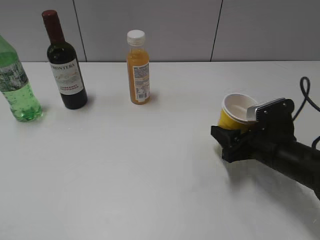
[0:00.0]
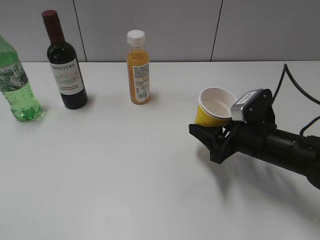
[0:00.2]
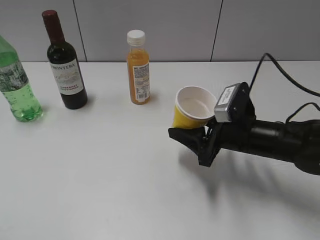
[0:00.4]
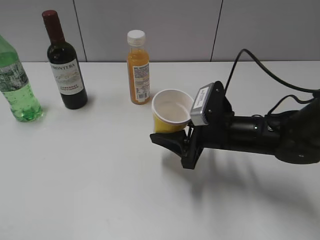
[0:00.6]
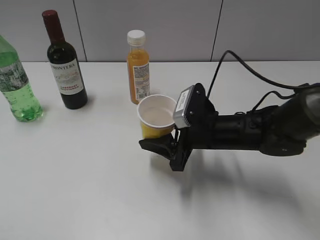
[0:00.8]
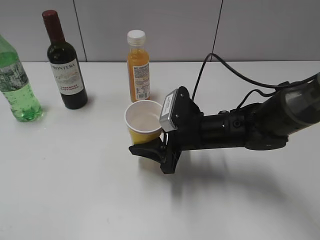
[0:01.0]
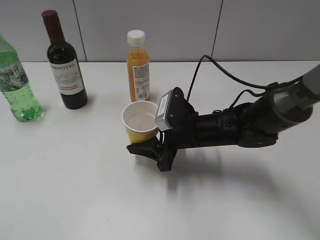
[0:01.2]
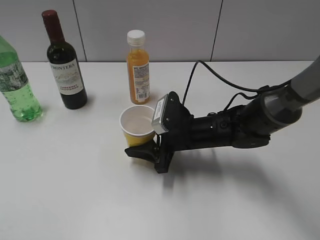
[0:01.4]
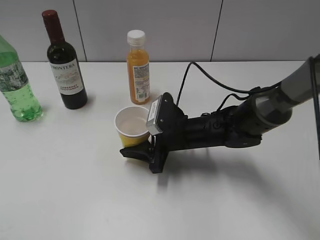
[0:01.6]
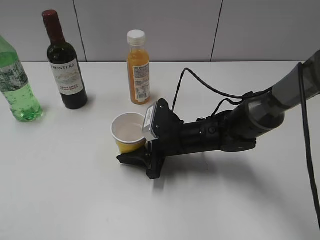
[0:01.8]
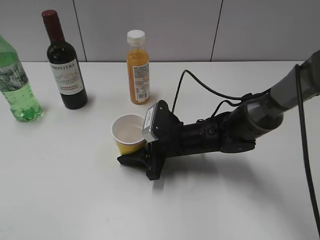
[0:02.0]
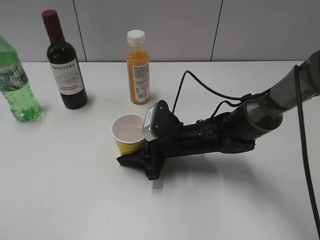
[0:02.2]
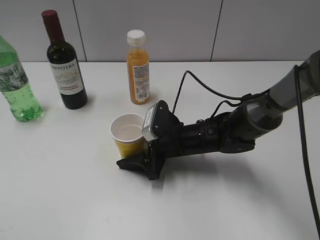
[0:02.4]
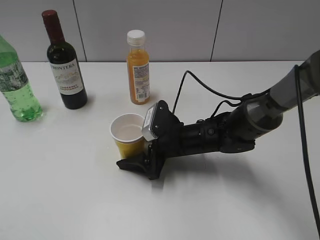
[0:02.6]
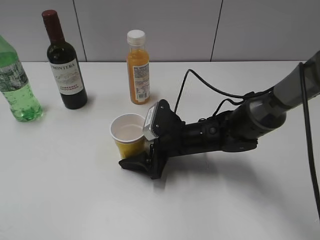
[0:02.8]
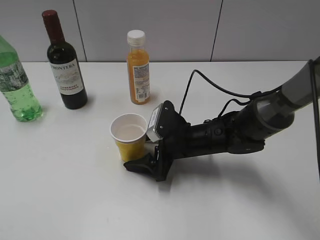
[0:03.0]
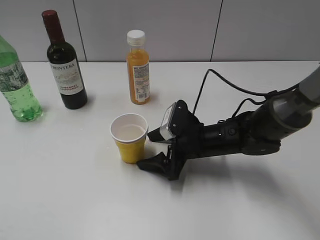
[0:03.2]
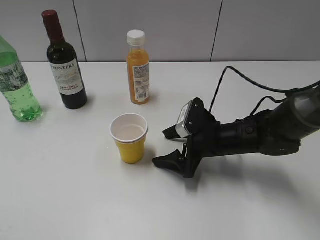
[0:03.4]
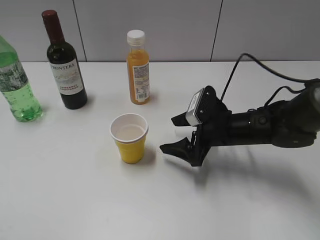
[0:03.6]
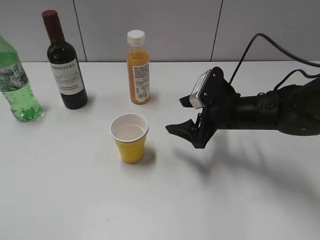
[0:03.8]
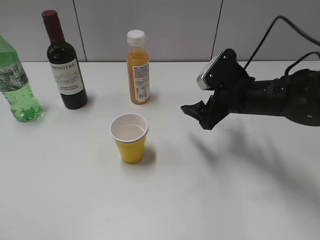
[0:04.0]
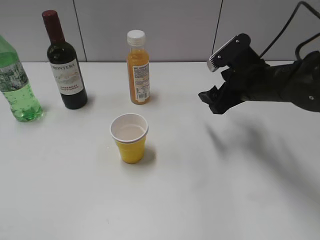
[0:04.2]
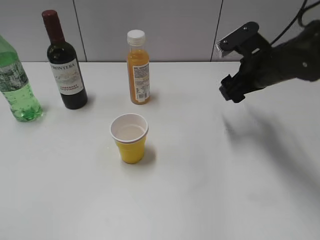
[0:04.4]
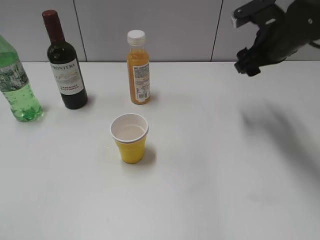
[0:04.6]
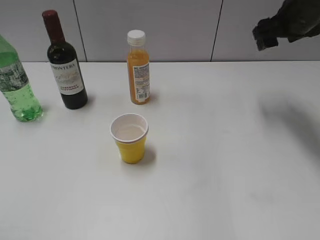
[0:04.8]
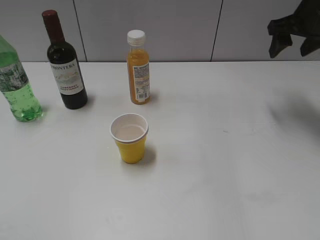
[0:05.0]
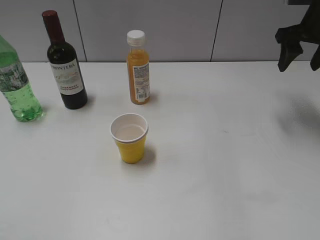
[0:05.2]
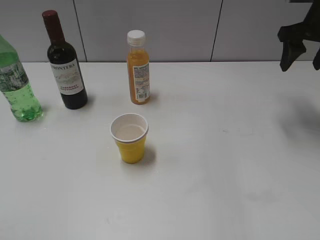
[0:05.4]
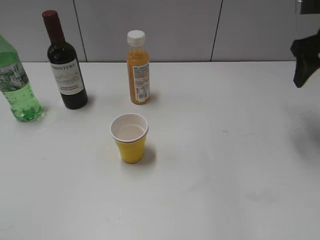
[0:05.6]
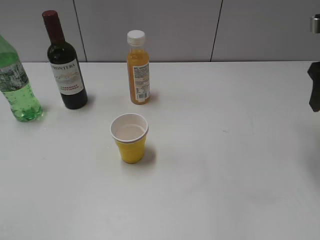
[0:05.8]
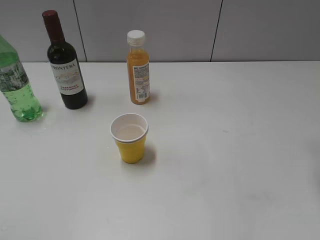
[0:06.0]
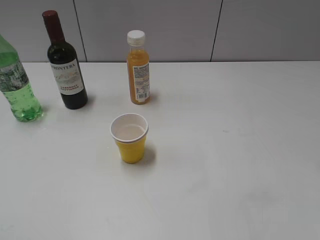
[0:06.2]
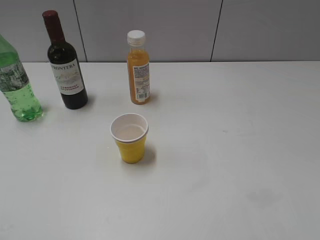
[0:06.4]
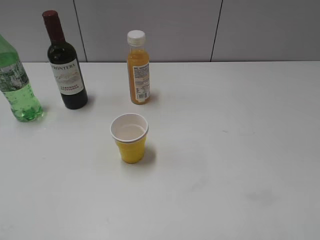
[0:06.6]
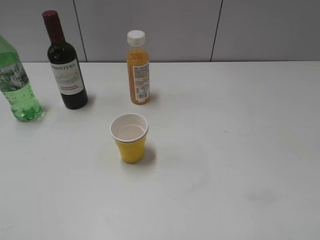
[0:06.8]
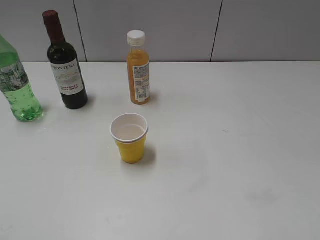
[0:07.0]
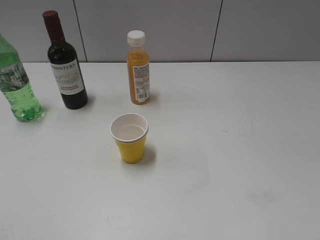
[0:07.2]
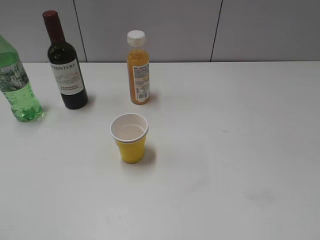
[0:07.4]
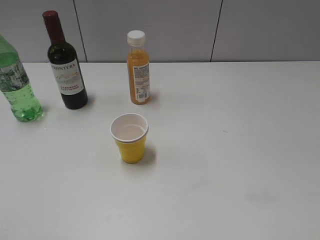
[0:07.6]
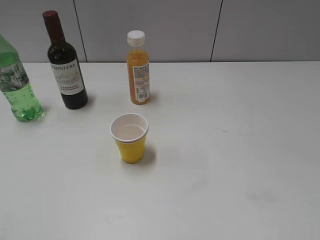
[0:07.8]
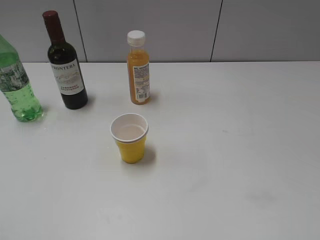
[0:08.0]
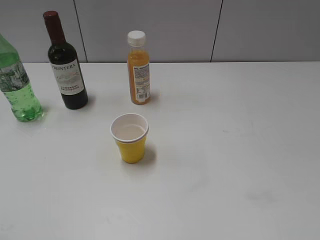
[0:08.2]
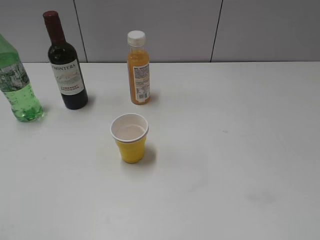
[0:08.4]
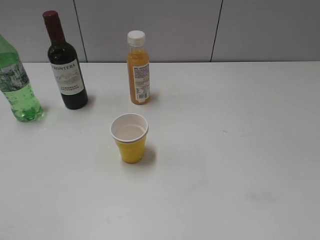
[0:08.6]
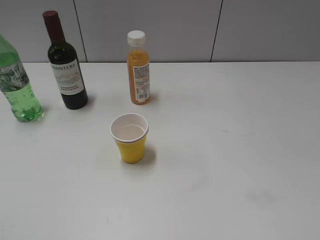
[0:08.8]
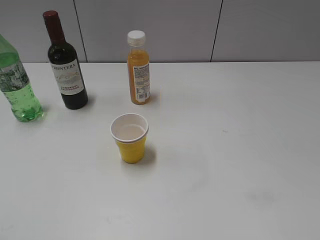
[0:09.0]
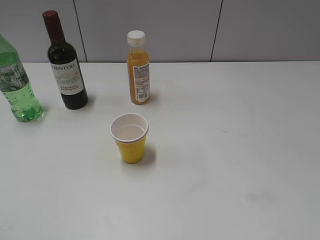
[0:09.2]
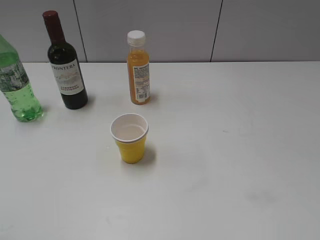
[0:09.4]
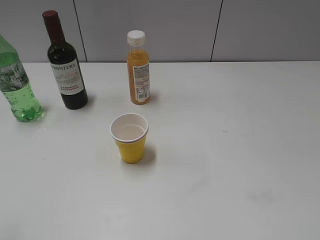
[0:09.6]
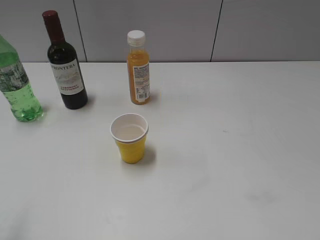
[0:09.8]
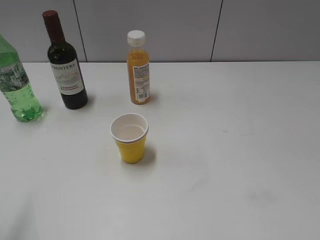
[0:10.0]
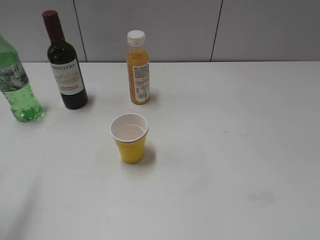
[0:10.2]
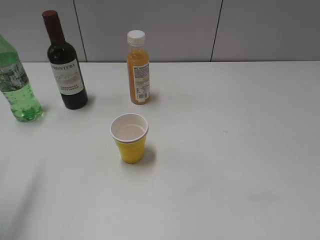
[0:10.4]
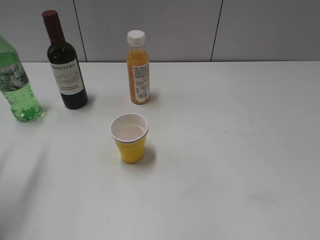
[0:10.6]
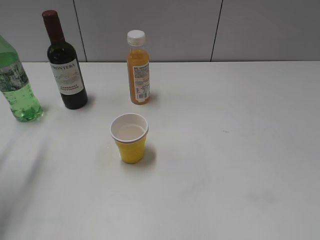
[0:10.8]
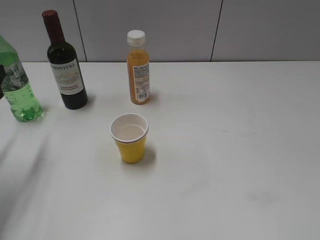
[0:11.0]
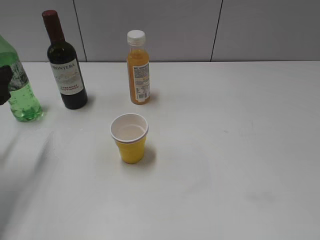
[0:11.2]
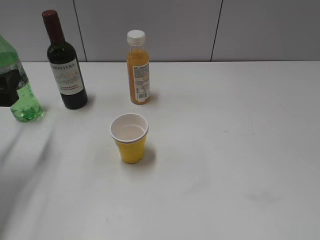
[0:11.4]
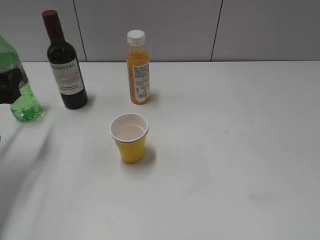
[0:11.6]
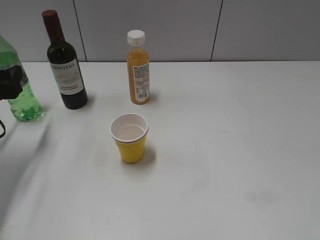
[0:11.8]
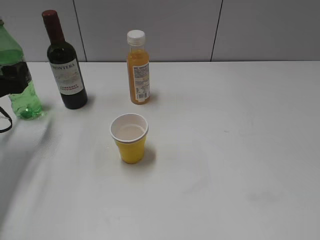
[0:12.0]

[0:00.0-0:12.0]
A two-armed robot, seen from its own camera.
Step, 0:00.0 to 0:03.2: Place the yellow paper cup on the table with right gripper.
0:00.0 to 0:01.6: The right gripper heads to the left, covering some 15 cm.
0:01.6 to 0:03.0: The right gripper opens up.
0:03.0 to 0:04.4: The right gripper moves upward, to the right and forward, roughly 20 cm.
0:04.4 to 0:06.0: The right gripper goes approximately 15 cm to the right, upward and backward.
0:09.0 to 0:10.4: The left gripper moves forward, some 15 cm.
0:10.4 to 0:12.0: The left gripper is displaced forward and downward by approximately 20 cm.

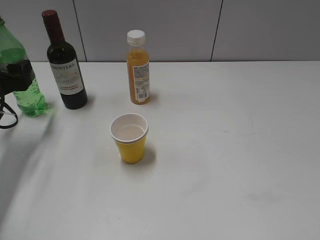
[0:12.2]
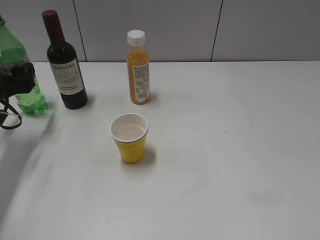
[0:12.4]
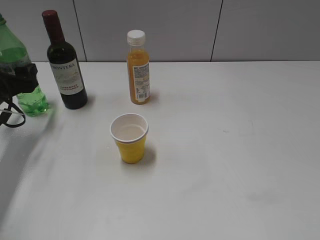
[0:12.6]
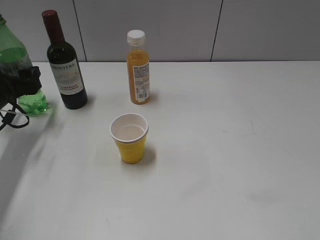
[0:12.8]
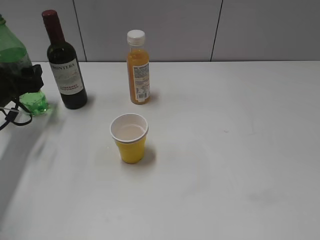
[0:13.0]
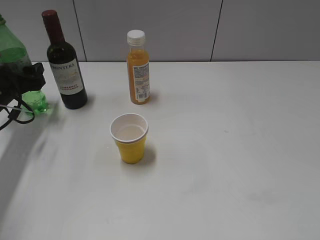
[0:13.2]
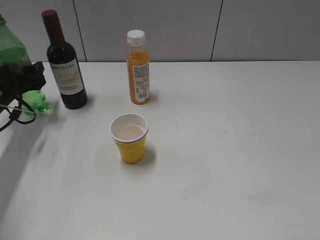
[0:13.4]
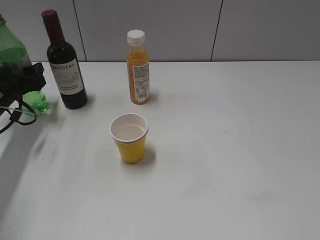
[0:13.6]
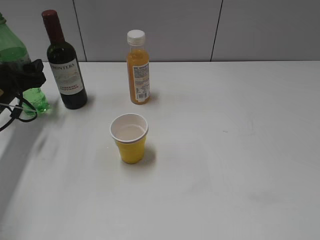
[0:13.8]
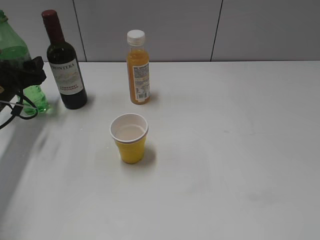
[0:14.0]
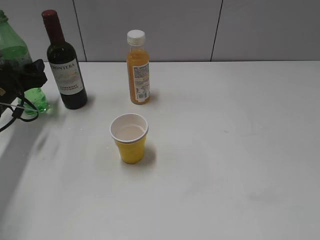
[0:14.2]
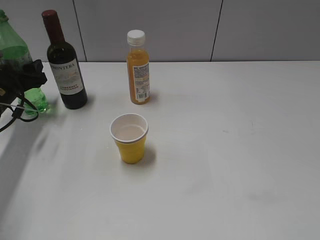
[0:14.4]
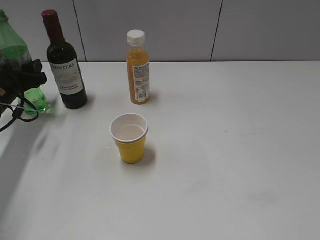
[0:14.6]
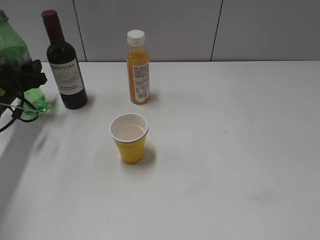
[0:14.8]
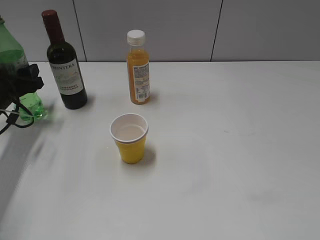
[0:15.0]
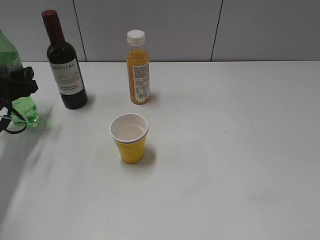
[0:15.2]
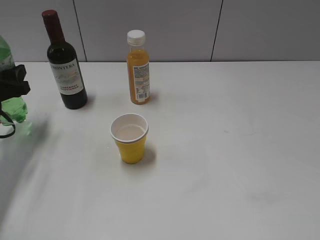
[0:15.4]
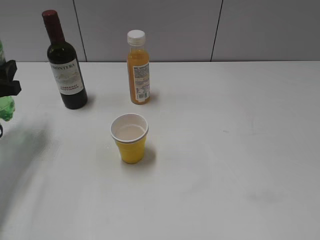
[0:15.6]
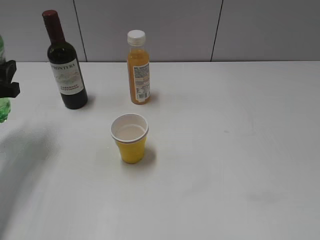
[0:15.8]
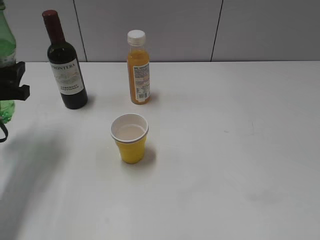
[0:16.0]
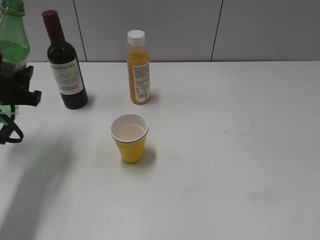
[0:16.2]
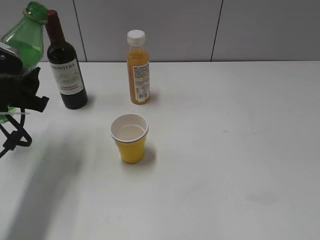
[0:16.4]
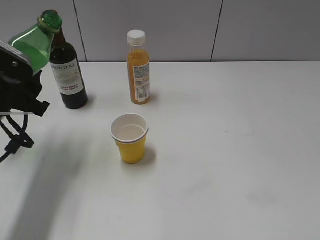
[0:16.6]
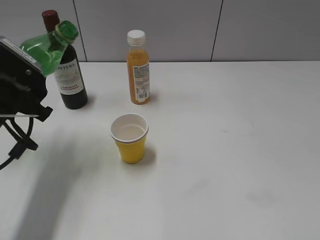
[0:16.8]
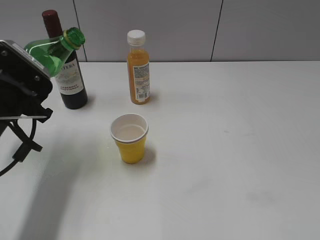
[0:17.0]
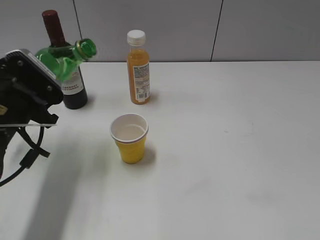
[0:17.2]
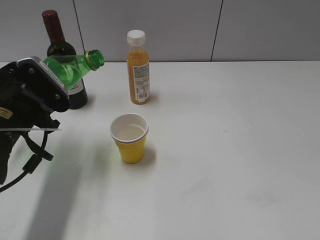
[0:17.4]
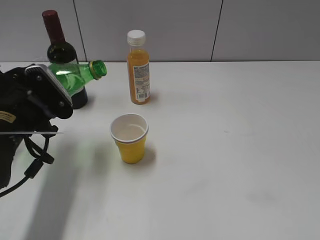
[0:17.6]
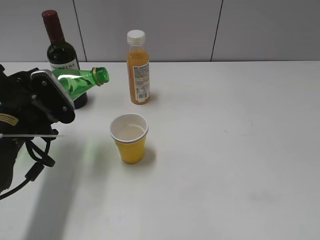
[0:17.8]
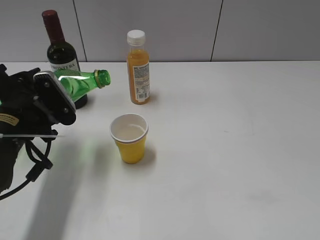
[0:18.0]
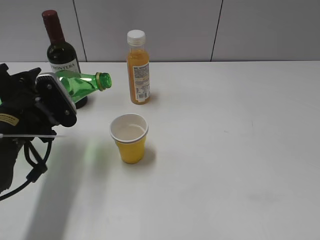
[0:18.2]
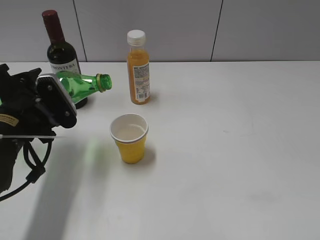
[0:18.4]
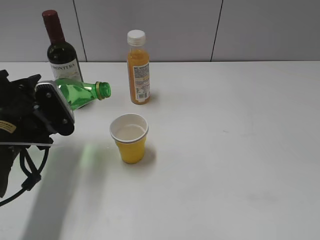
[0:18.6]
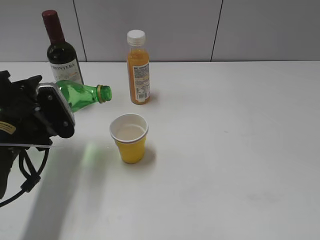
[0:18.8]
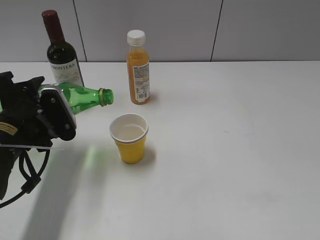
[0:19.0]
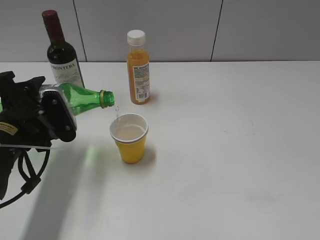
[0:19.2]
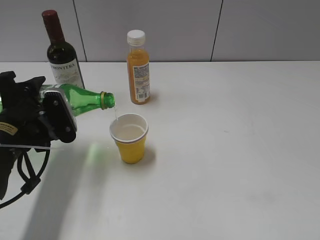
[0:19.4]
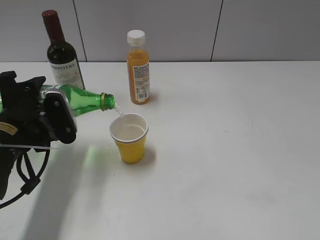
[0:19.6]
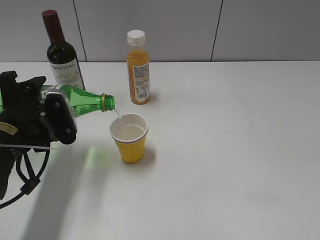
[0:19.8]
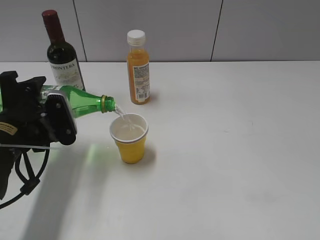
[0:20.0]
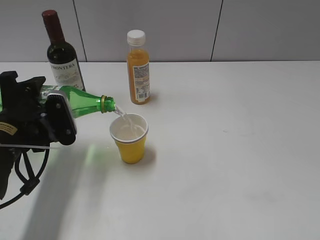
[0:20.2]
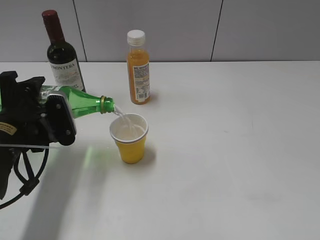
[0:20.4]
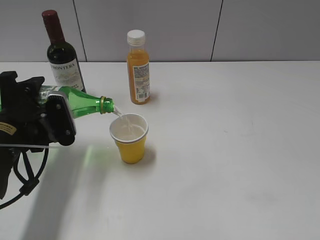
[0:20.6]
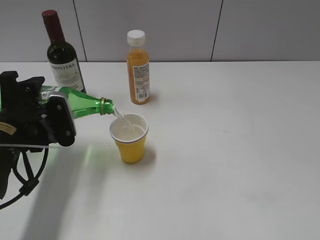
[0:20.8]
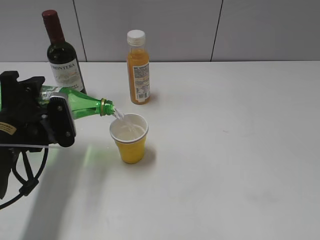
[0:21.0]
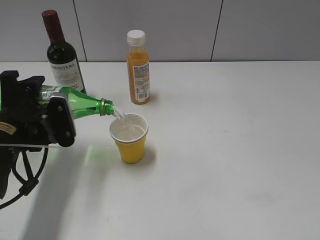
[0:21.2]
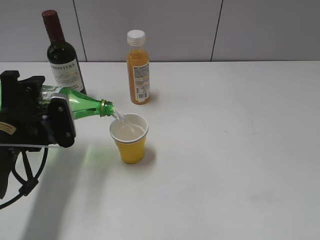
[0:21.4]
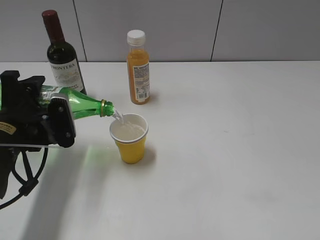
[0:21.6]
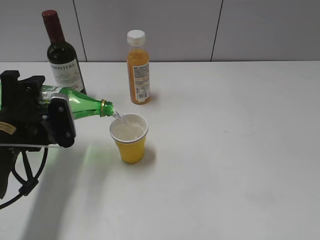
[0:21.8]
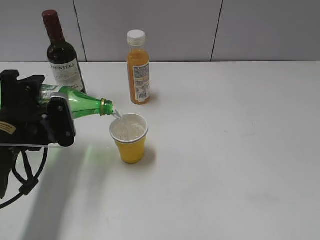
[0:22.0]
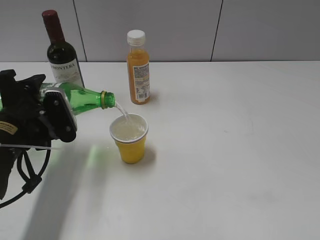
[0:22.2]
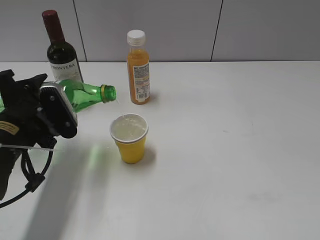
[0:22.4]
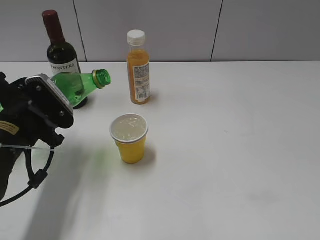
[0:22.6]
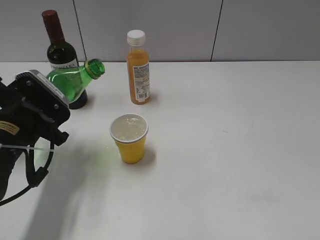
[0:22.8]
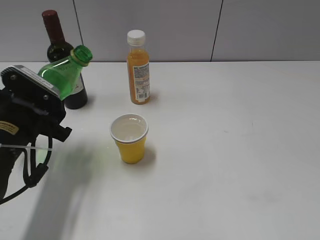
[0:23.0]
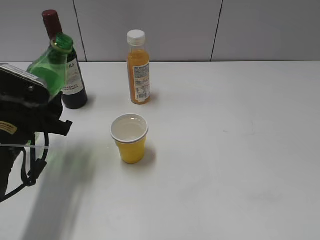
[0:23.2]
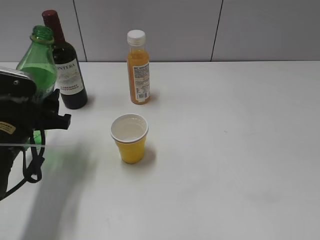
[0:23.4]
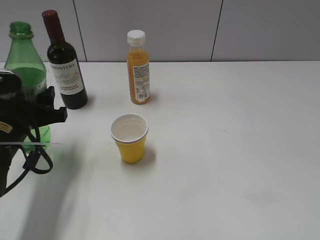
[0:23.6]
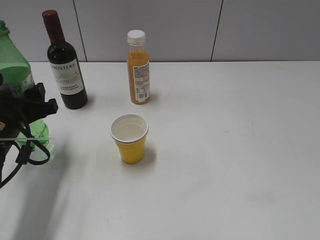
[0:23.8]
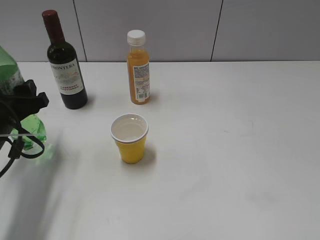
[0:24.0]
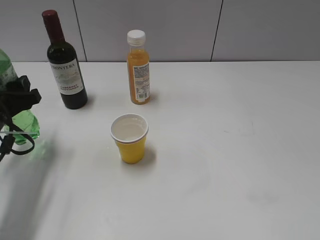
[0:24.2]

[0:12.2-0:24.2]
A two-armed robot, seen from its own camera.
Step, 0:12.2 to 0:14.8: Grasp the bottle with sprite with left gripper.
Step, 0:15.0 to 0:22.4: Pour the sprite from bottle to cup with left gripper.
0:12.2 to 0:13.8: The left gripper moves forward, some 5 cm.
0:13.8 to 0:15.2: The left gripper closes up.
0:15.2 to 0:16.6: The left gripper moves backward, to the right and upward, some 15 cm.
0:18.2 to 0:21.2: The grippers make only small movements.
0:22.6 to 0:24.2: The left gripper shifts some 5 cm to the left.
